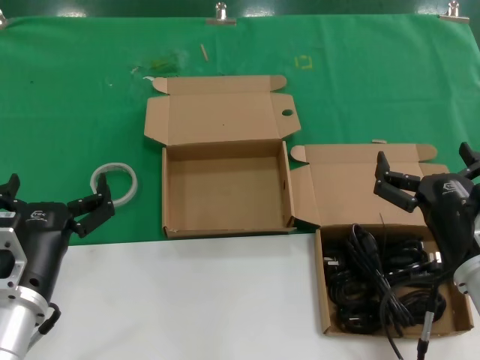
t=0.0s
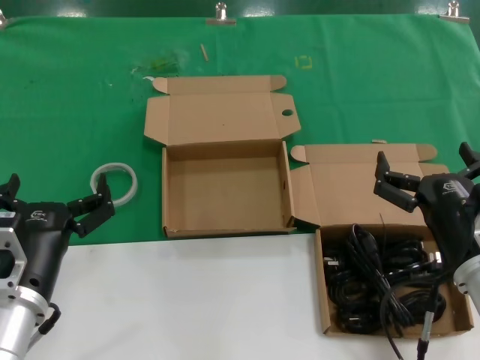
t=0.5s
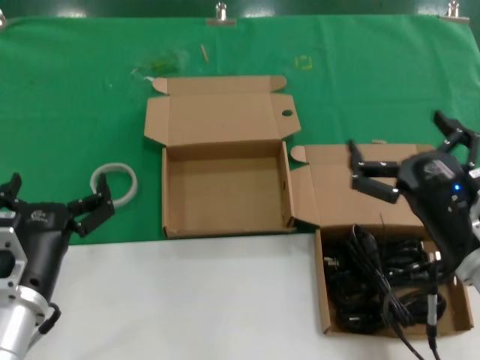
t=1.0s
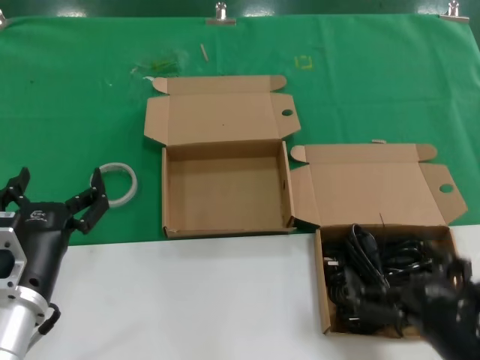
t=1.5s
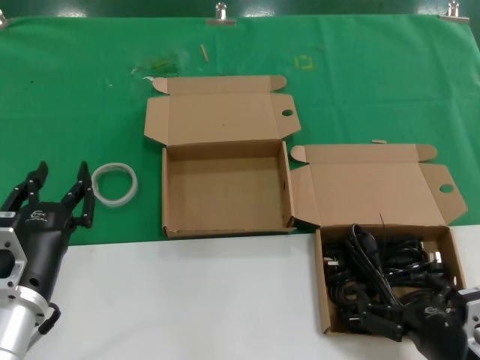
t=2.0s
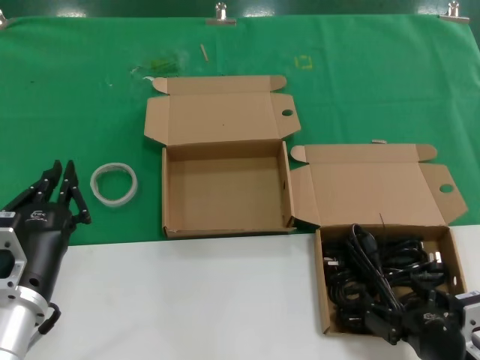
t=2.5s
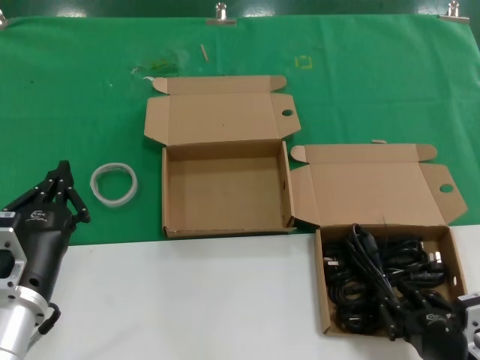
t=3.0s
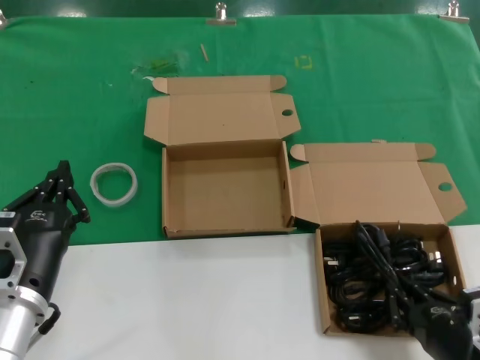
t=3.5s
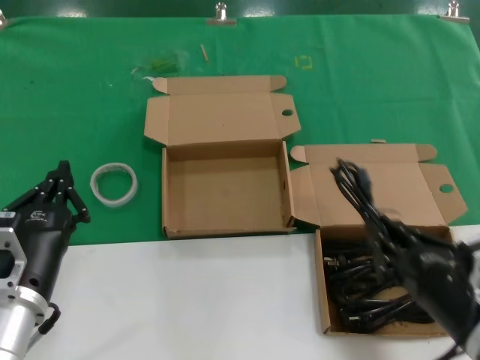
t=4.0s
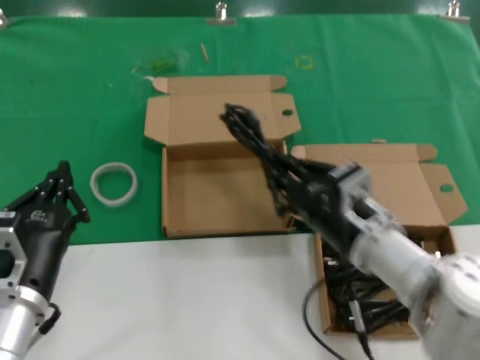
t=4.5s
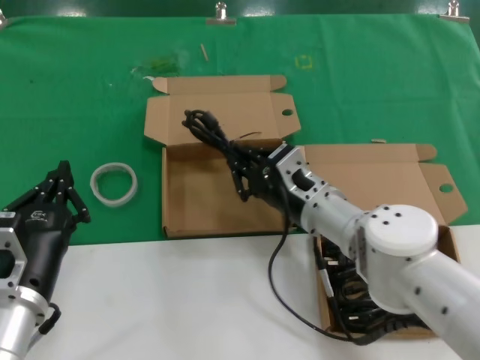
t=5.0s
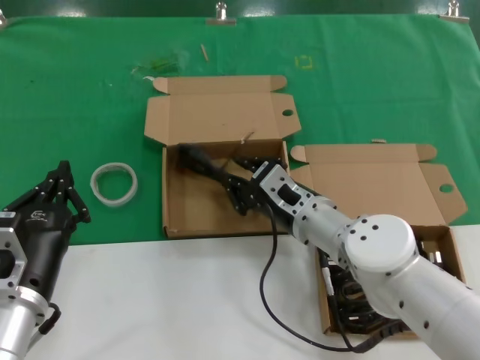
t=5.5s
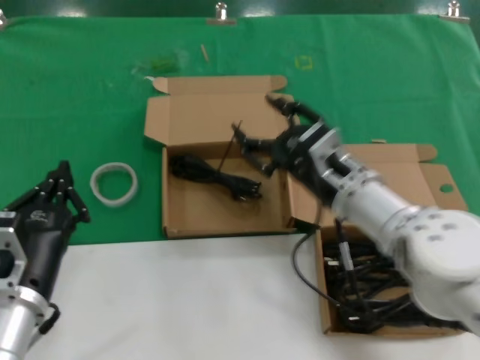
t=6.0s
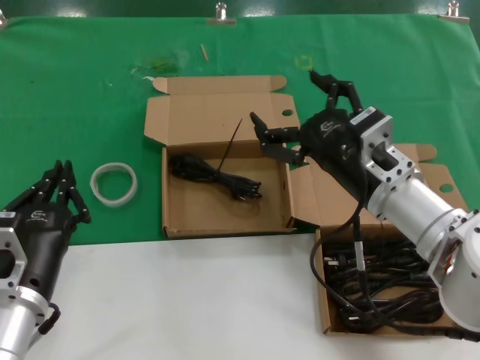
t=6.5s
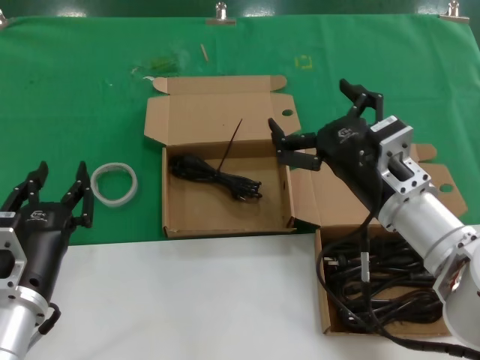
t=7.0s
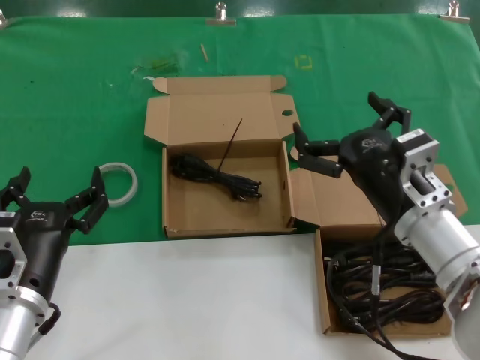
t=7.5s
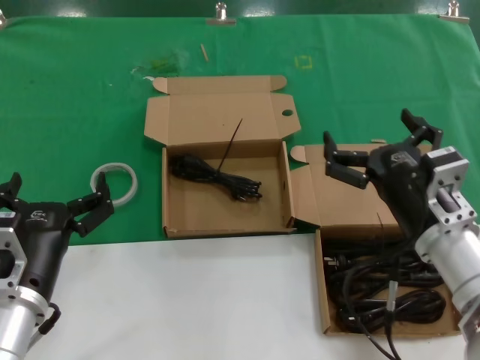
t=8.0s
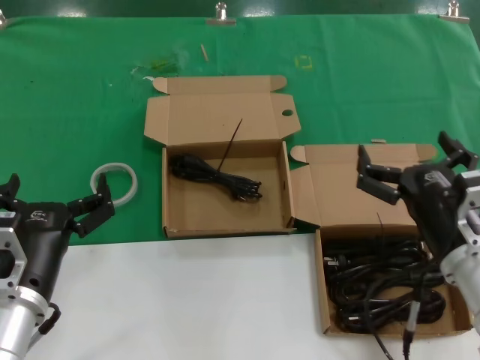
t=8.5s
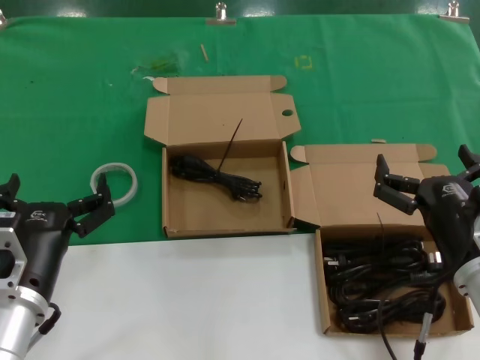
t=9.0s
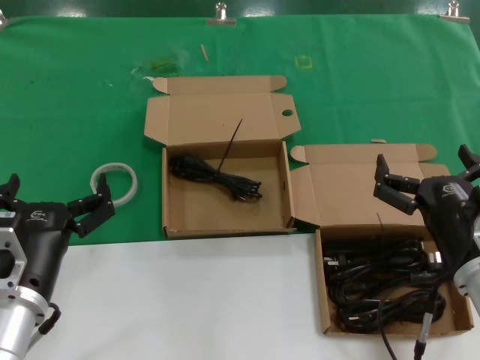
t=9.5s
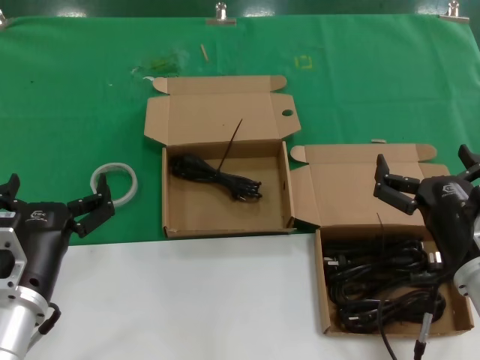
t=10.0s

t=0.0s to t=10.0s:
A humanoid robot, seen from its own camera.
Task of the whole recording: Pick up the power cord from the box containing it and place it in another box.
Step, t=0.0s to t=3.5s: Grasp the data cable.
Step, t=4.0s to t=5.5s: Place the data cable in the another box.
t=0.0s to t=2.0s: The right hand travels backward by roughly 10 cm.
t=2.0s to t=4.0s: The right hand shifts approximately 5 cm upward.
t=4.0s to t=6.0s: The right hand shifts about 20 cm forward and to the left.
t=6.0s to t=8.0s: The right hand heads backward and to the right, covering about 10 cm.
t=8.0s to t=10.0s: The right hand ends up some 5 cm from where it was.
